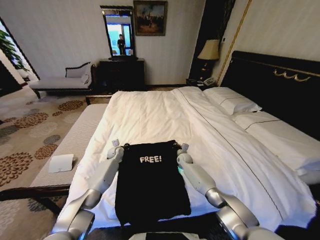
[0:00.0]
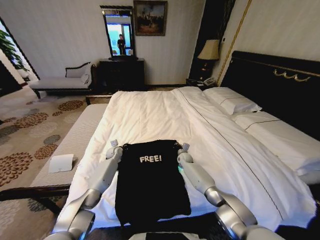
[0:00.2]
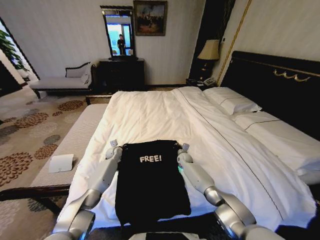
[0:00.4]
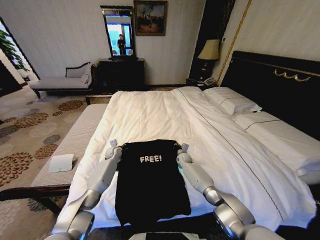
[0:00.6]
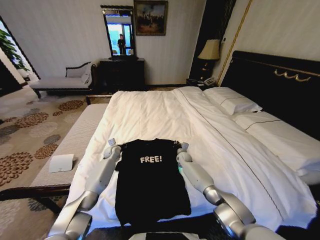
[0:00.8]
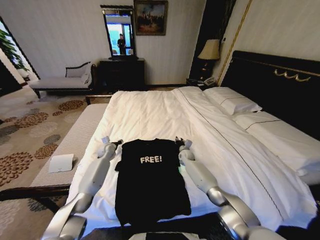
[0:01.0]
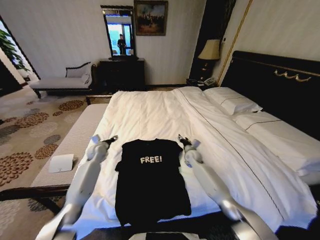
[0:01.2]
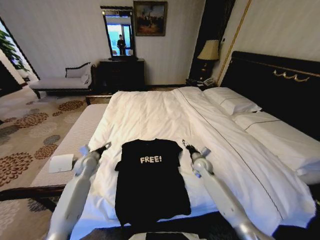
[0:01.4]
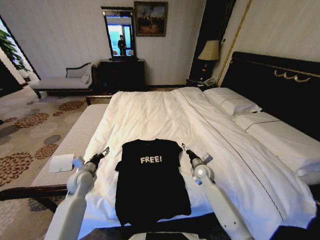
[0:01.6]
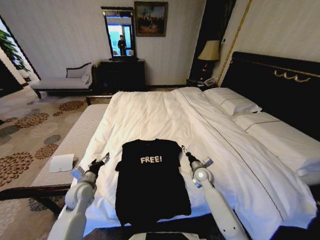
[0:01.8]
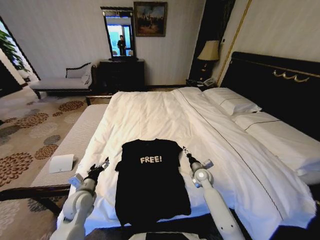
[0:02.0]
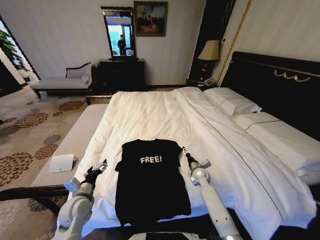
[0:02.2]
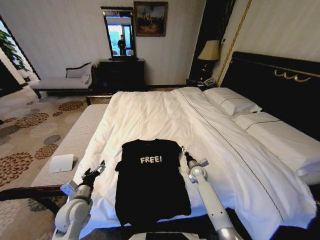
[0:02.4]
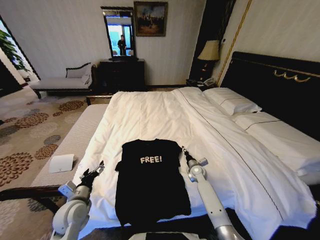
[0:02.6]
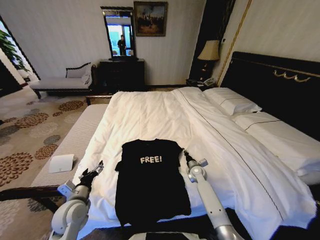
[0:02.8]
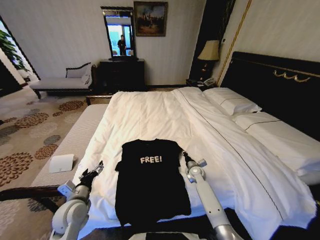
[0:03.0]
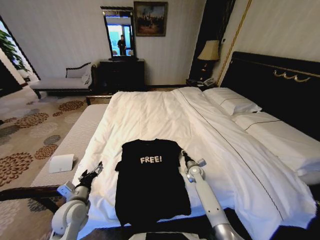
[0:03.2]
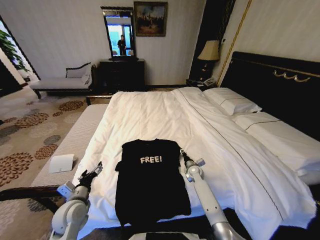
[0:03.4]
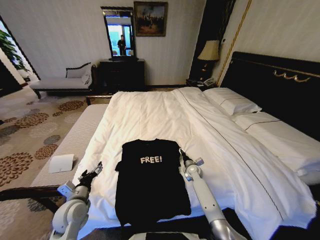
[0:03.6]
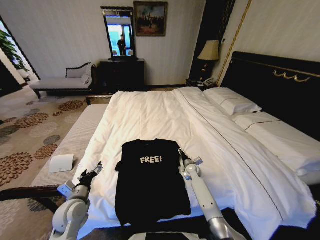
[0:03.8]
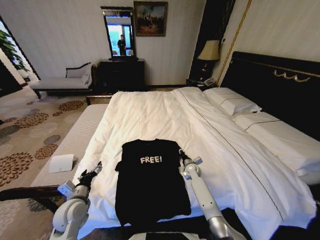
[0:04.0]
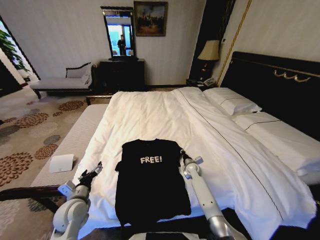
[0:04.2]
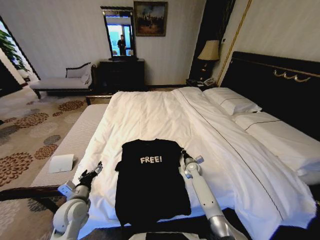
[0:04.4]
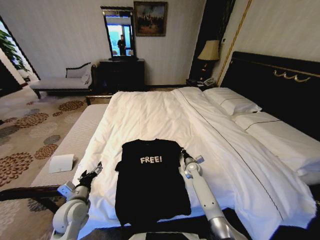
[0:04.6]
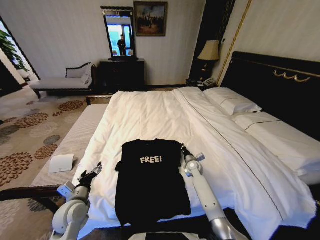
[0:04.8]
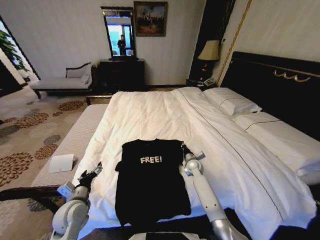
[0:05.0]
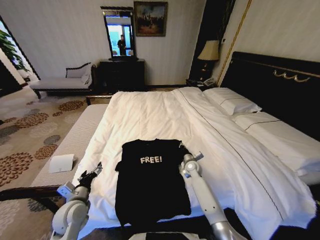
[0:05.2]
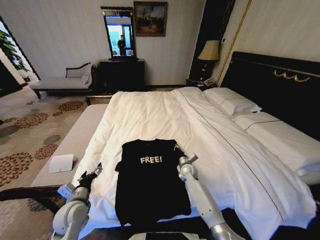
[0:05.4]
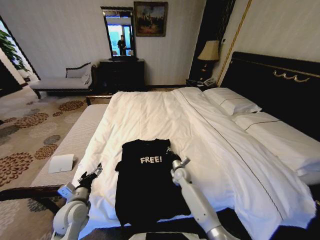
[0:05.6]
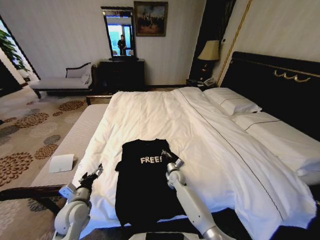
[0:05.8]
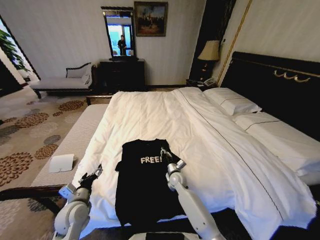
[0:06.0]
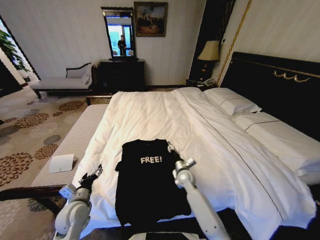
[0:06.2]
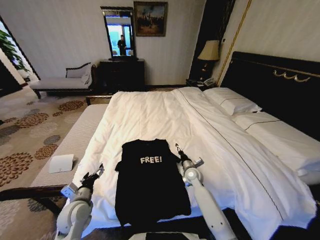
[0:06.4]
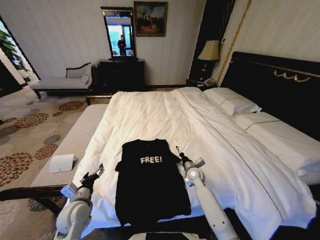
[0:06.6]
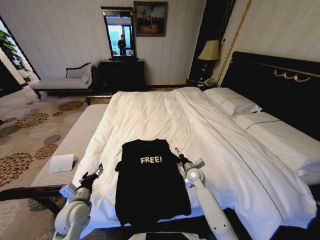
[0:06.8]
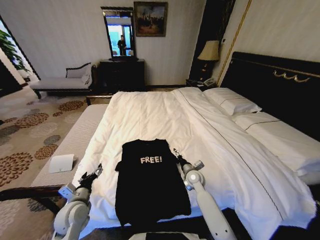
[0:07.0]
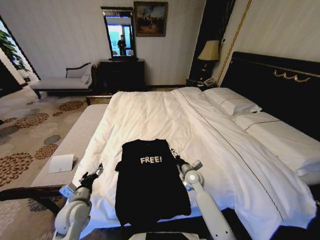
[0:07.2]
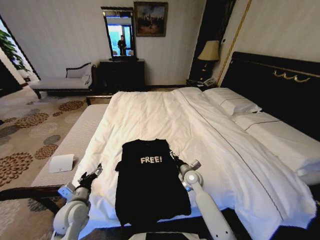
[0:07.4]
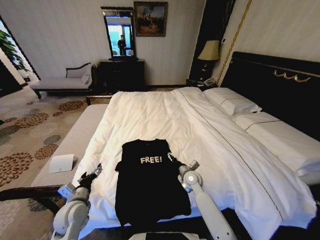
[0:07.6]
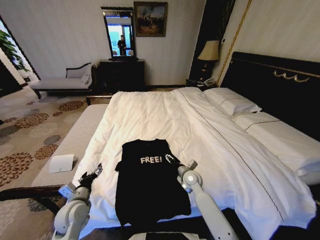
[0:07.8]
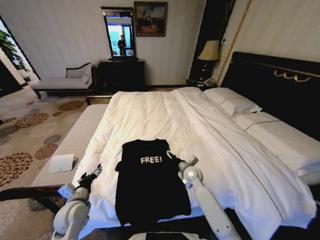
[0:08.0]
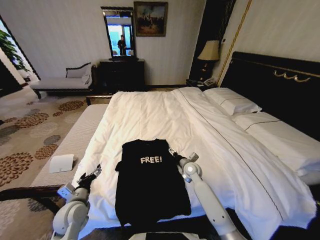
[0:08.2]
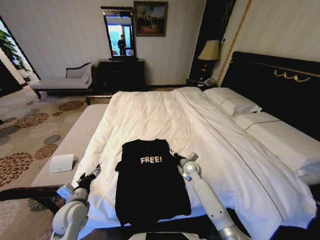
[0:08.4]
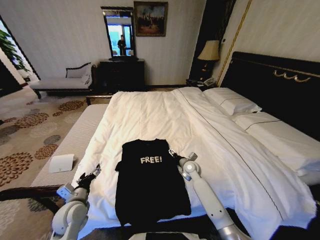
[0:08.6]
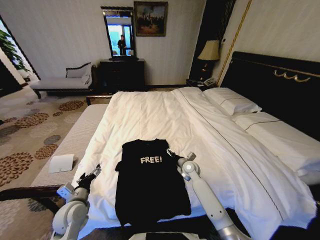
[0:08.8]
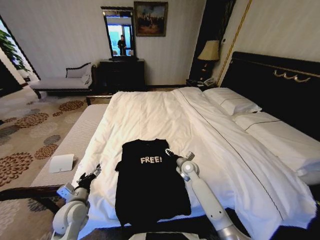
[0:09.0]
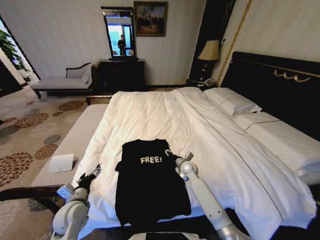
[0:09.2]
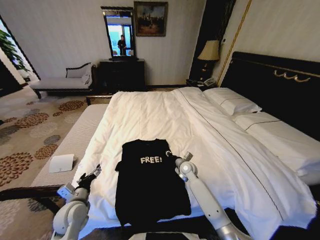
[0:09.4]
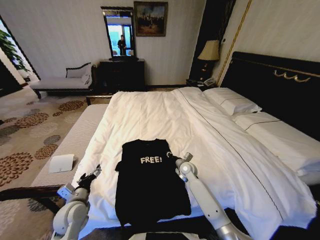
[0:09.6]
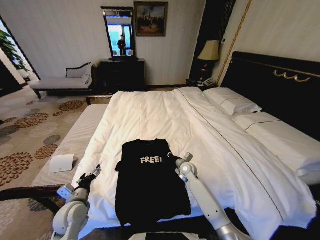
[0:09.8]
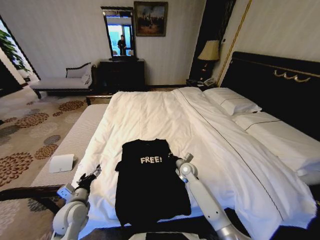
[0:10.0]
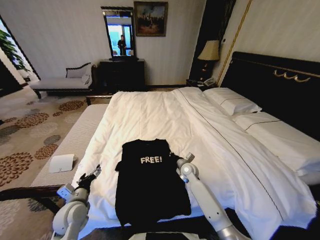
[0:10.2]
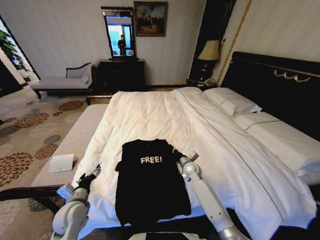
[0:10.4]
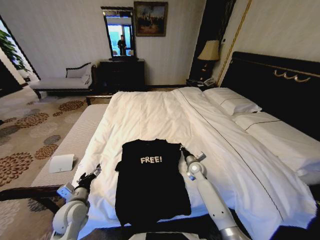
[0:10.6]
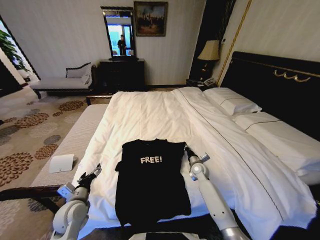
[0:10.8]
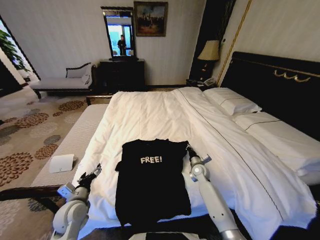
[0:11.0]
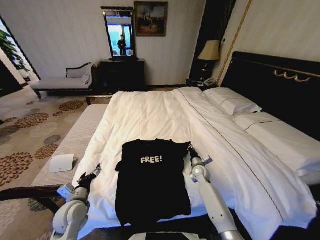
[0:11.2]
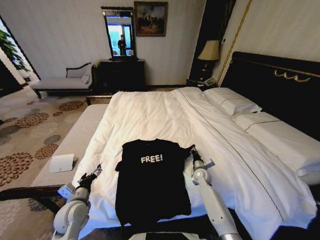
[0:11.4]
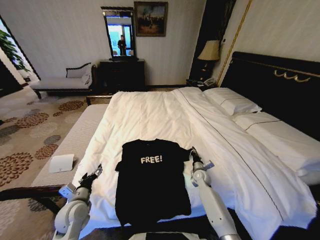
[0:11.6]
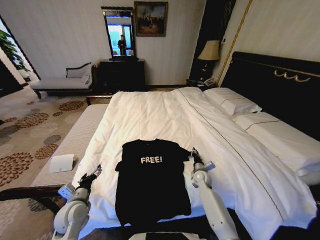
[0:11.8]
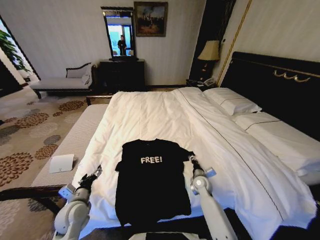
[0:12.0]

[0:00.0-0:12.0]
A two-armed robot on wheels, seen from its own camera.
Task of the whole recording: Fold the clothes on the bed.
0:00.0 to 0:01.6: The left gripper moves backward, some 20 cm, and opens its fingers. Meanwhile the right gripper shifts about 15 cm backward and upward, and opens.
0:01.6 to 0:03.0: The right gripper moves downward, about 5 cm, and closes up. The left gripper goes some 10 cm backward.
0:03.0 to 0:04.4: The right gripper opens, then closes once more.
0:04.4 to 0:06.0: The right gripper goes some 15 cm to the left and backward.
0:06.0 to 0:07.6: The right gripper shifts approximately 10 cm to the right and upward, and opens.
0:07.6 to 0:09.0: The right gripper travels forward by some 5 cm.
0:09.0 to 0:10.4: The right gripper closes its fingers.
0:10.4 to 0:12.0: The right gripper is displaced backward by about 5 cm, and opens its fingers.

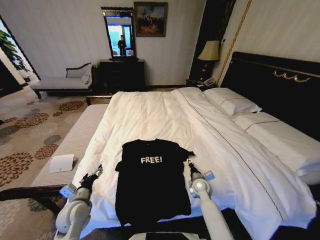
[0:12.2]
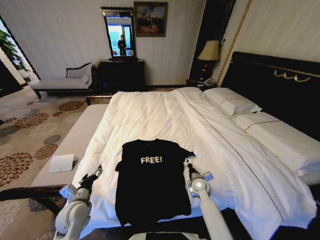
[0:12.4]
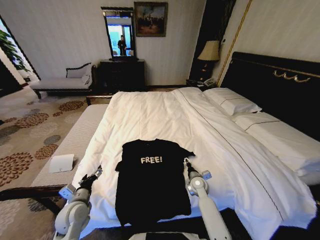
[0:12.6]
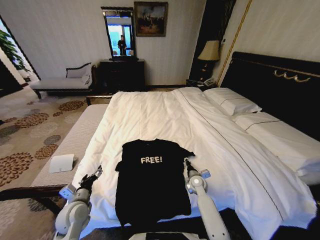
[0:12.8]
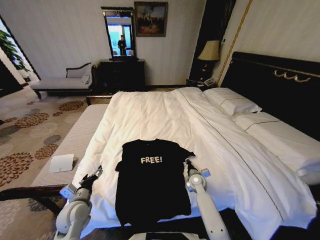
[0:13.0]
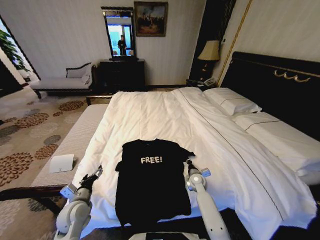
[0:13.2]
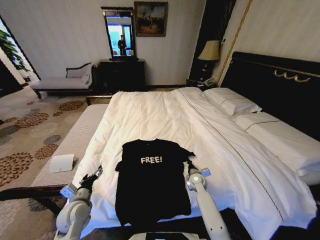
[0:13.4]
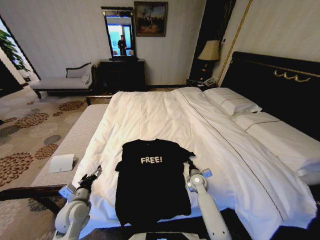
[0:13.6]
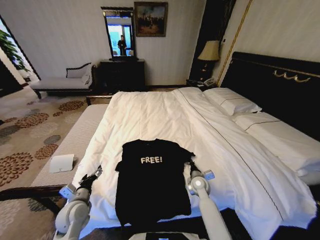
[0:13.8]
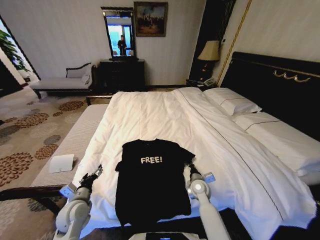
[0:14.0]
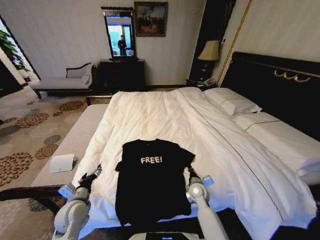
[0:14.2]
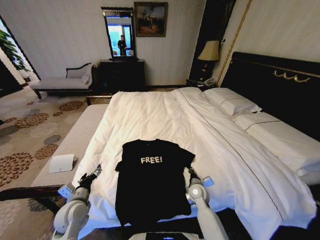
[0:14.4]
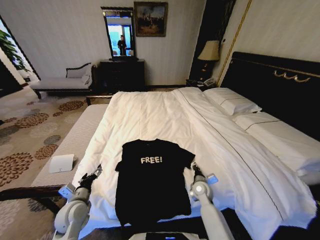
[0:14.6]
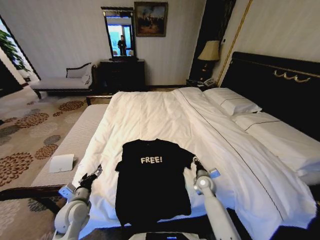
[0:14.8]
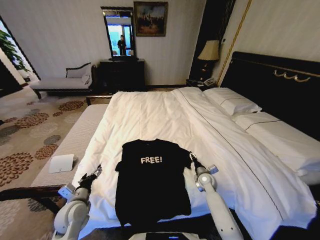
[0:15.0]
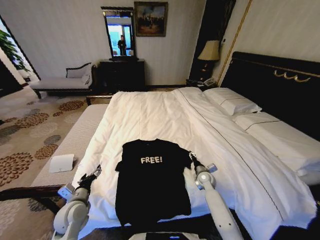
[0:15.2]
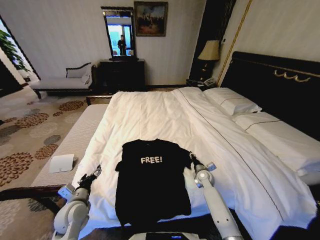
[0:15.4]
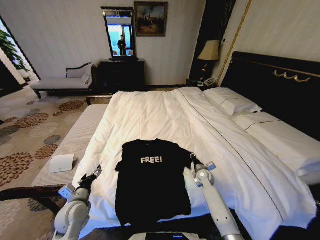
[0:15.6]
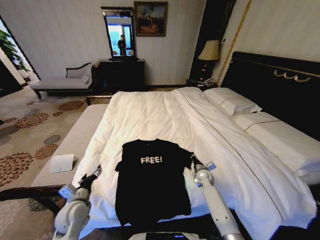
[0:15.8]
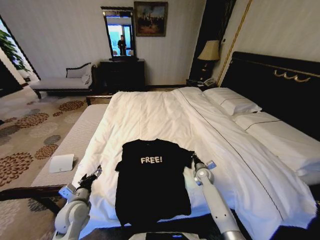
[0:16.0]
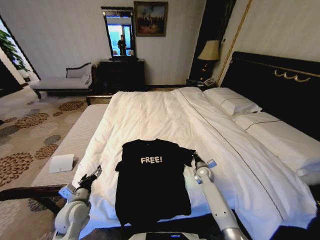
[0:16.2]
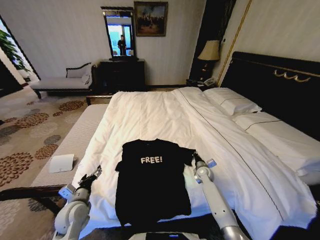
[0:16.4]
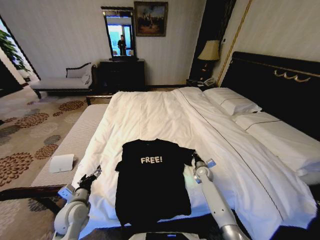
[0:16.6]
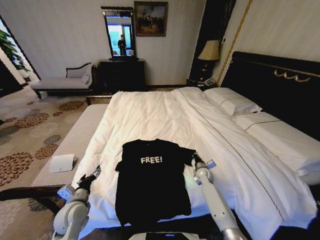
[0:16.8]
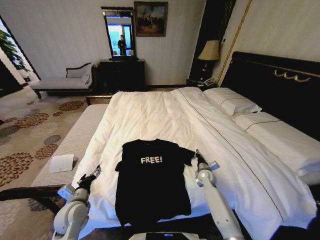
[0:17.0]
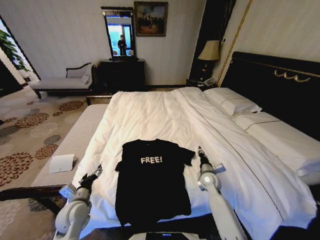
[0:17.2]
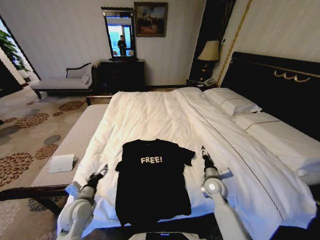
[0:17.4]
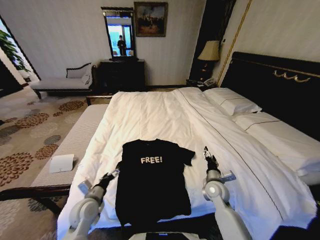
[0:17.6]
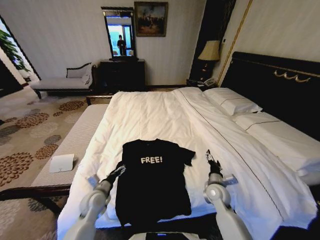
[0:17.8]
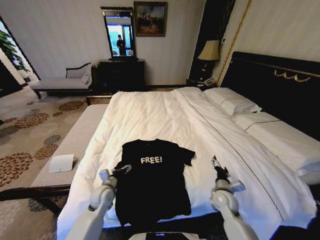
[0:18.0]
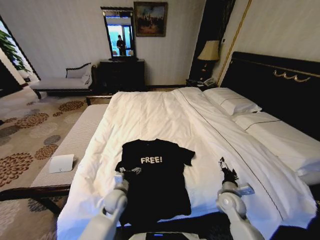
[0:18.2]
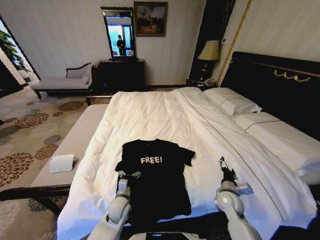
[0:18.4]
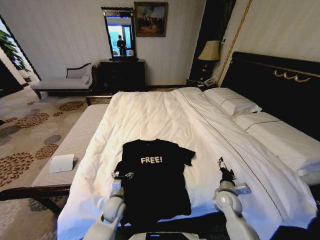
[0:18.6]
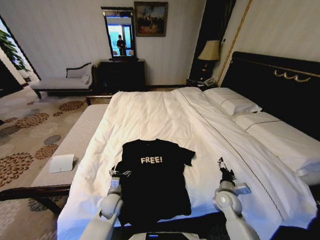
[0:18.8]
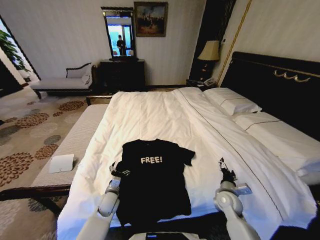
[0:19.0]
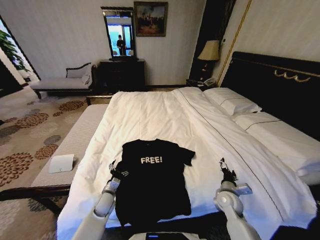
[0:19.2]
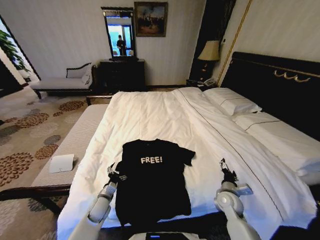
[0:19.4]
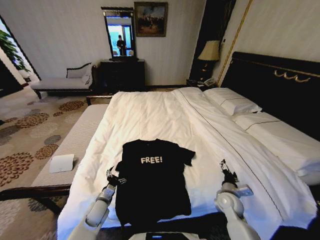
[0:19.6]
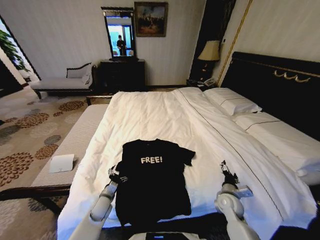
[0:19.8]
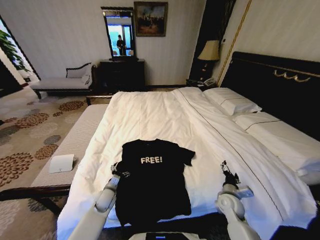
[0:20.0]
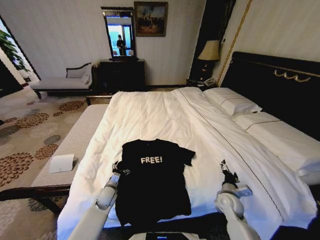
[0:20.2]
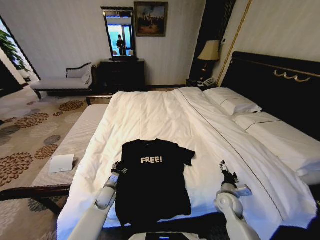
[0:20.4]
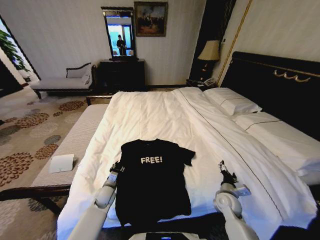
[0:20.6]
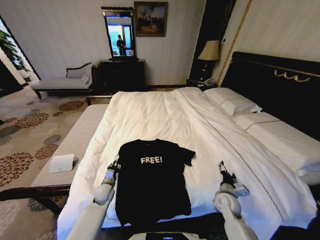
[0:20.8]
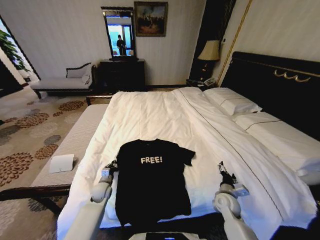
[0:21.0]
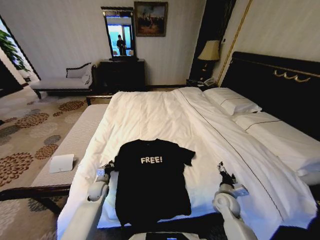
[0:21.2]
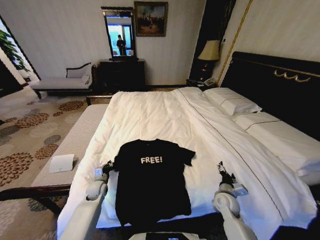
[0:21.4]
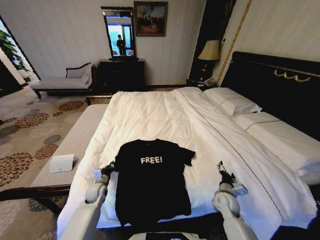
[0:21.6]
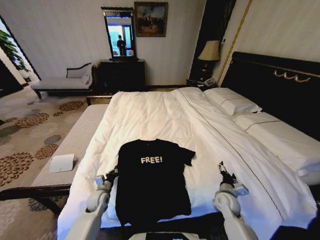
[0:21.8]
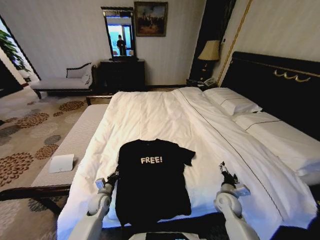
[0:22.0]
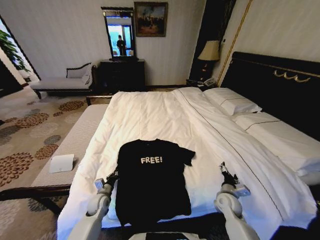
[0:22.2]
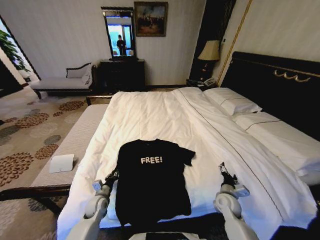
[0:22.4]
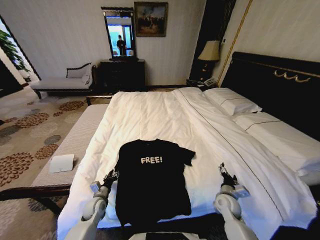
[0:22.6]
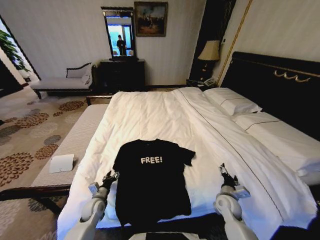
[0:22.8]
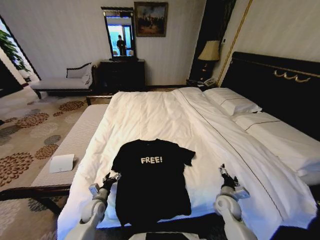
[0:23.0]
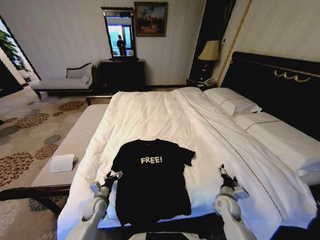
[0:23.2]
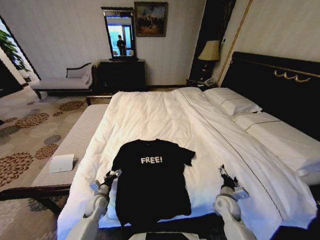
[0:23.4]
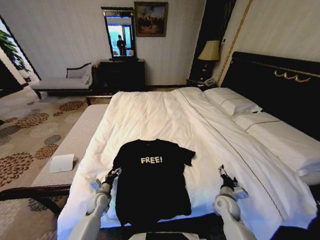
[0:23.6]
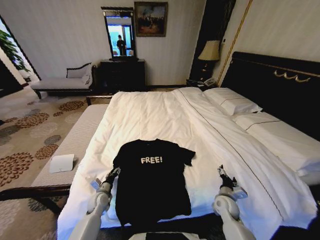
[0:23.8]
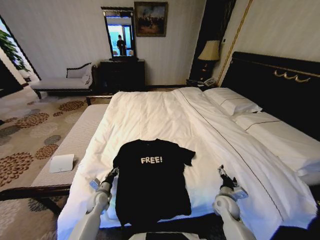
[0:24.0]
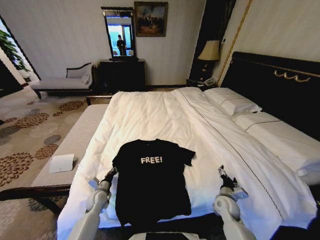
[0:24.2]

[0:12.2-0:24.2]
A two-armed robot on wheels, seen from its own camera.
Task of the whole recording: Fold the clothes on the bed.
0:12.2 to 0:13.8: The right gripper closes.
0:13.8 to 0:15.2: The right gripper travels to the right by roughly 5 cm, and opens up.
0:15.2 to 0:16.6: The right gripper closes up.
0:16.6 to 0:18.2: The right gripper heads backward, covering approximately 15 cm, and opens its fingers; the left gripper is displaced to the right, forward and downward by about 15 cm.
0:18.2 to 0:19.8: The left gripper is displaced to the left by approximately 10 cm.
0:19.8 to 0:21.2: The left gripper heads forward, covering approximately 10 cm, and closes up.
0:21.2 to 0:22.6: The left gripper shifts about 5 cm backward, and opens up.
0:22.6 to 0:24.2: The left gripper opens and closes again.
